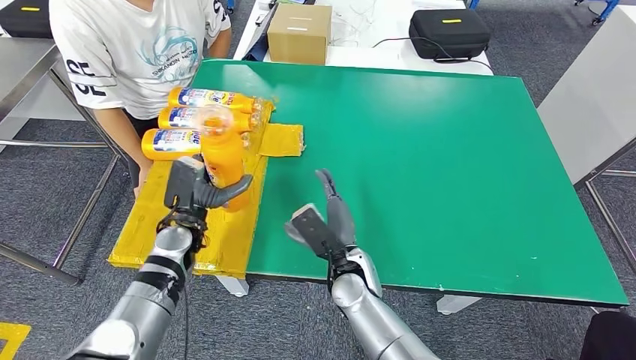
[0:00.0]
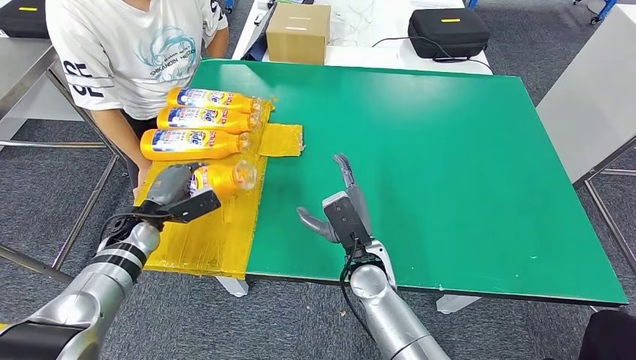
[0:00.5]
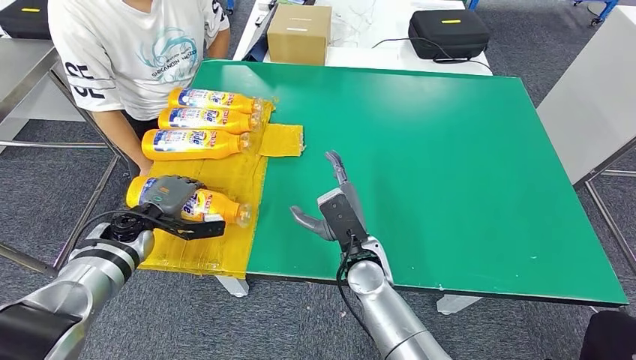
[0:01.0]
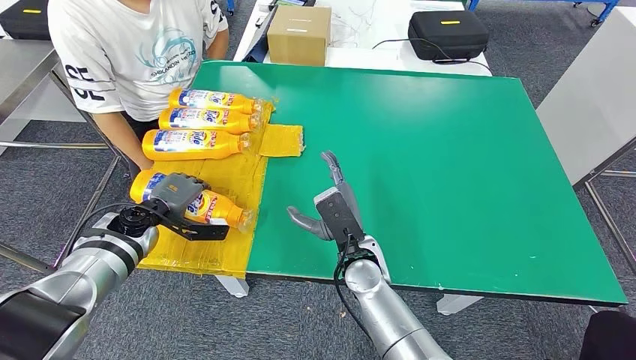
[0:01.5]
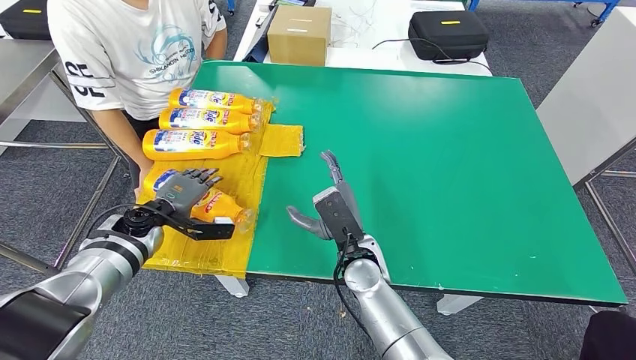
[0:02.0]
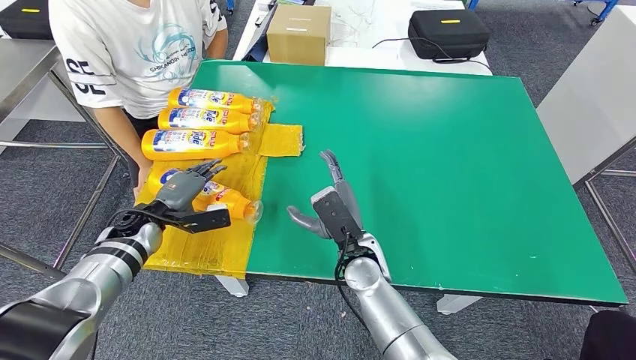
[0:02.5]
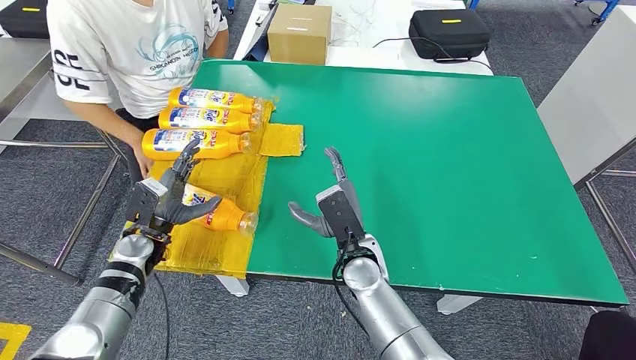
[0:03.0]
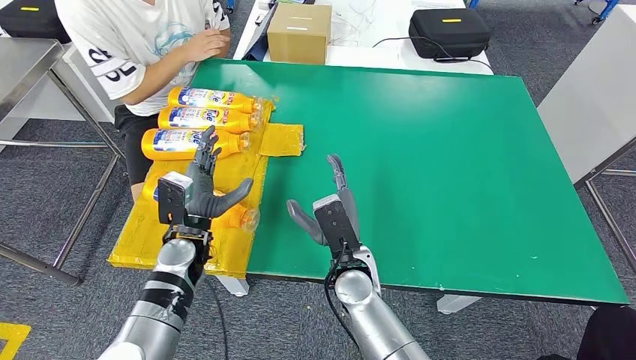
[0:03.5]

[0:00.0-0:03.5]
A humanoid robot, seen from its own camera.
Step, 0:00.0 to 0:03.5: Flip the fast-moving consumer goods bottle to the front side.
0:00.0 to 0:02.0: The left hand is displaced to the left by about 10 cm.
